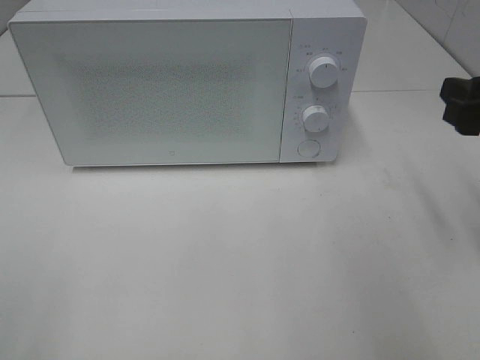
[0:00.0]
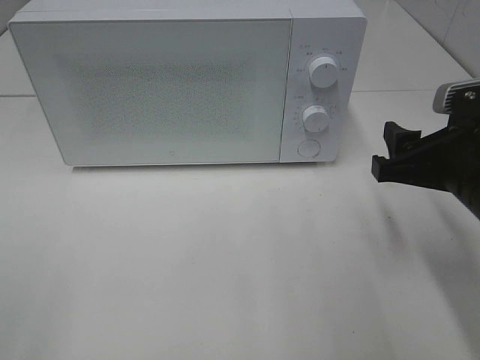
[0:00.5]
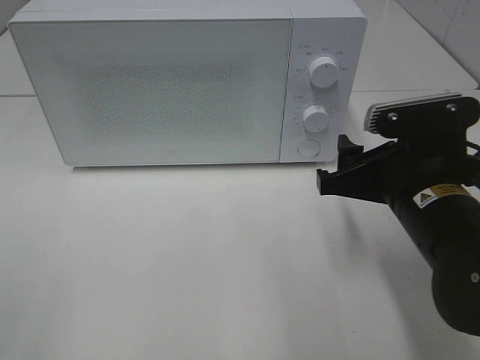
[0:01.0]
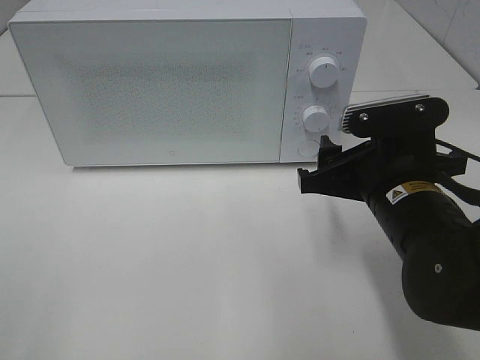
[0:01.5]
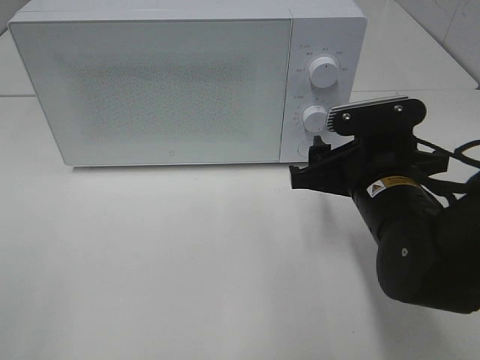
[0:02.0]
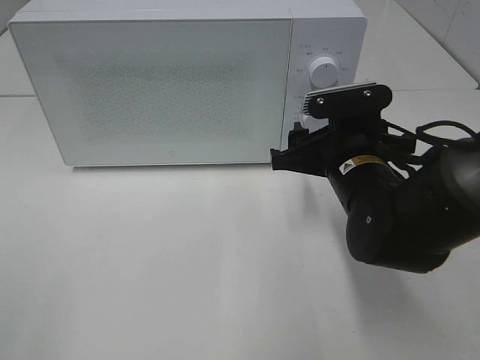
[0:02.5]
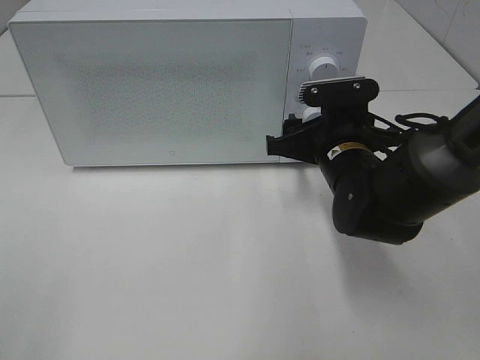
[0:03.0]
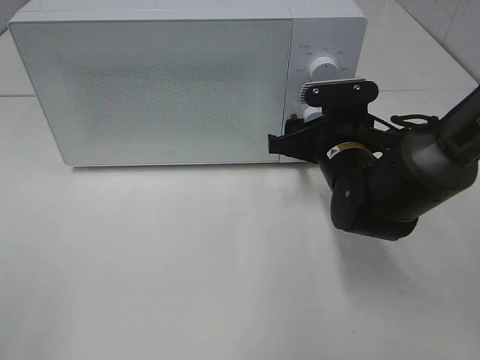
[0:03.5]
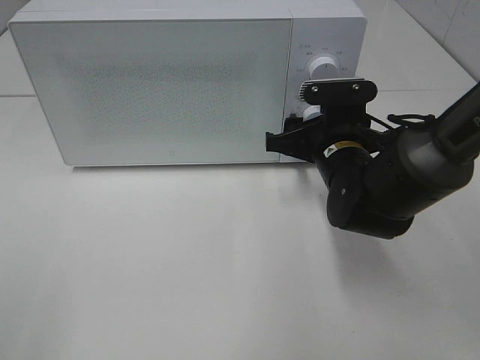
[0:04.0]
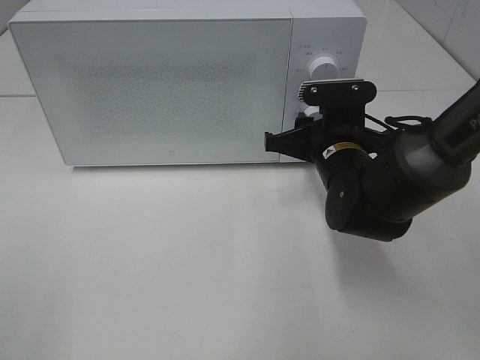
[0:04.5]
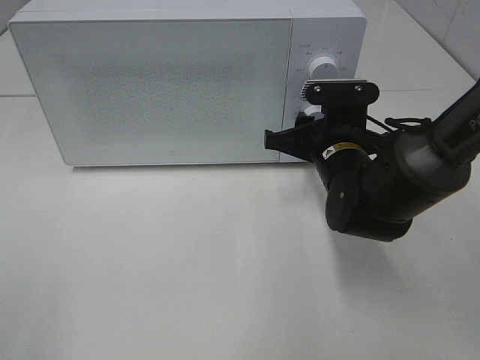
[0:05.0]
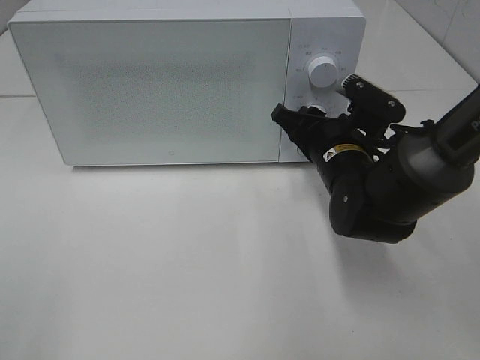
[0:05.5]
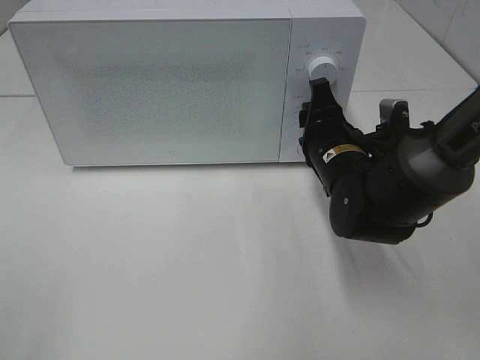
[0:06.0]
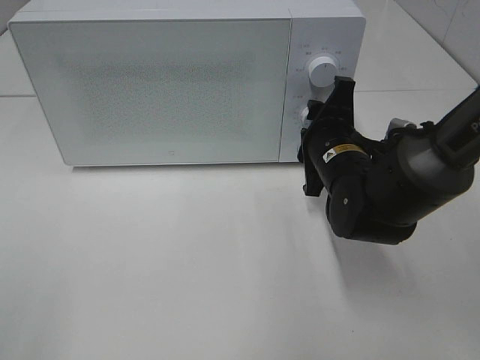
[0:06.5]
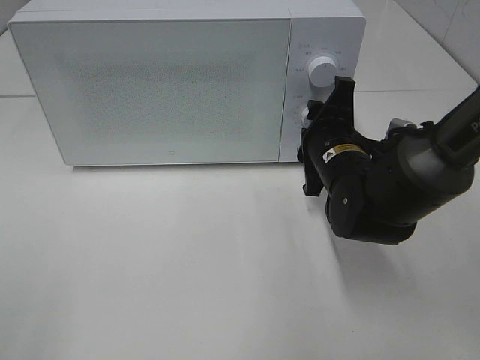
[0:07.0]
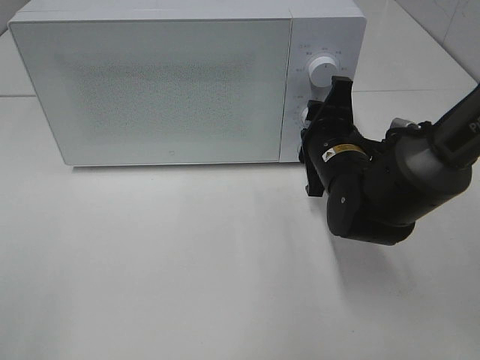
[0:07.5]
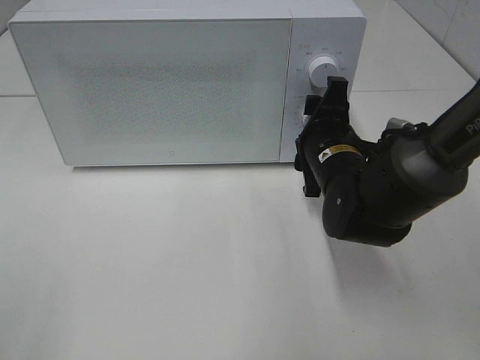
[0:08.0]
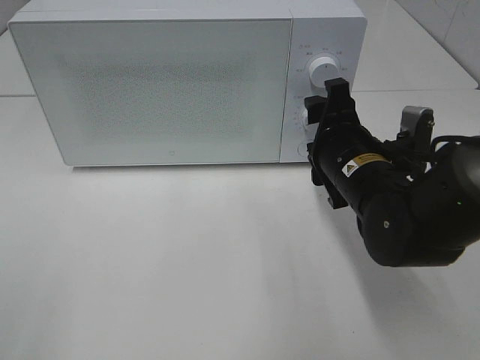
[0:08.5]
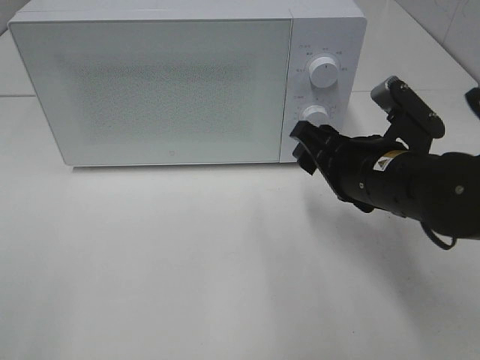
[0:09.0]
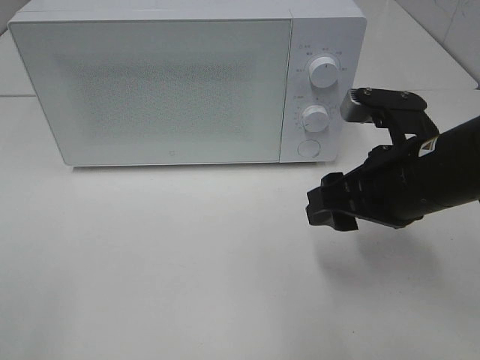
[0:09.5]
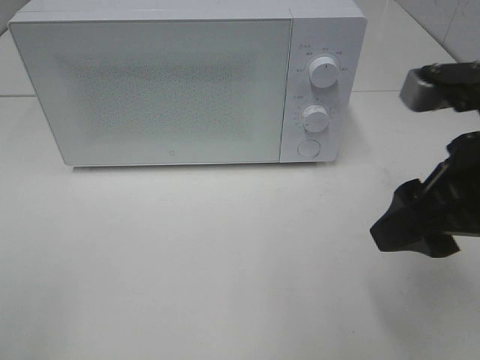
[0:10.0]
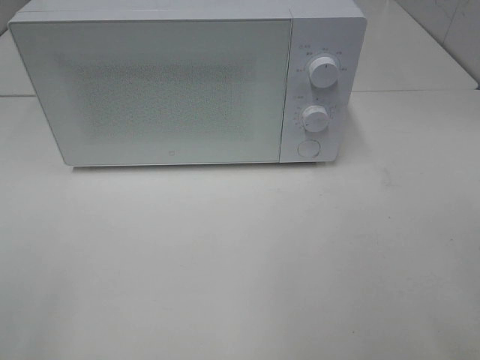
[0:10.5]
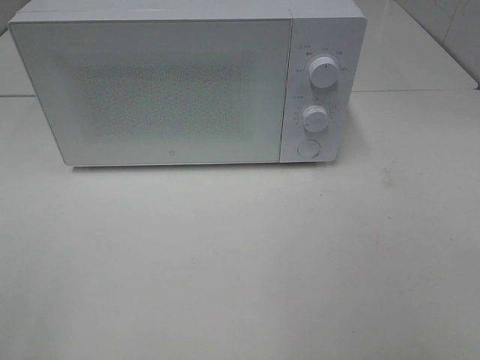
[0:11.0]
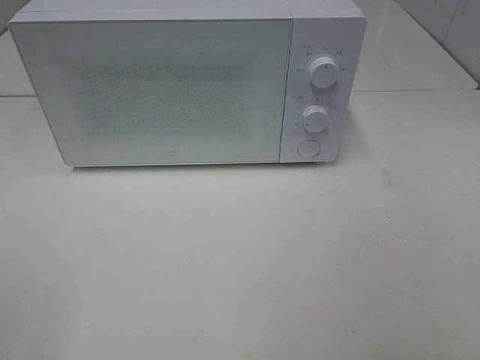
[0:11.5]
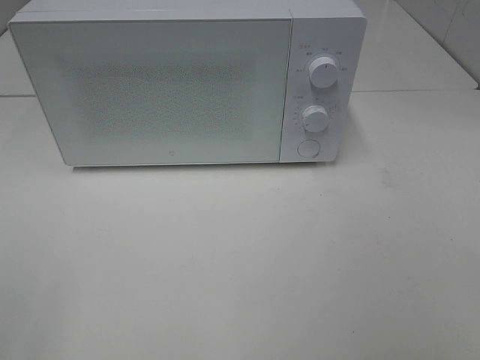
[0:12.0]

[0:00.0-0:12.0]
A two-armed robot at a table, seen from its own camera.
Task of the whole recording: Heat the burger.
Step, 0:00.0 to 0:08.0: Right hand: twist timer button.
0:00.0 to 0:02.0: The right gripper moves to the left and downward, about 15 cm.
0:02.0 to 0:04.0: The right gripper moves forward, about 10 cm.
0:08.0 to 0:10.0: The right gripper is displaced backward, upward and to the right by some 25 cm.
0:10.0 to 0:12.0: The right gripper travels backward and to the right by roughly 20 cm.

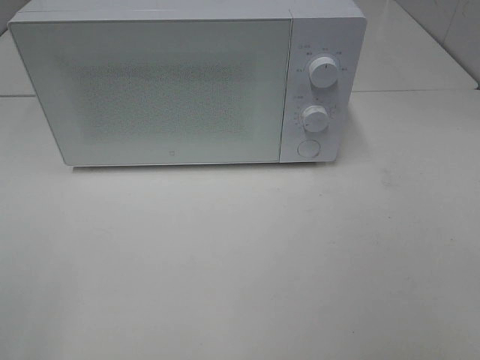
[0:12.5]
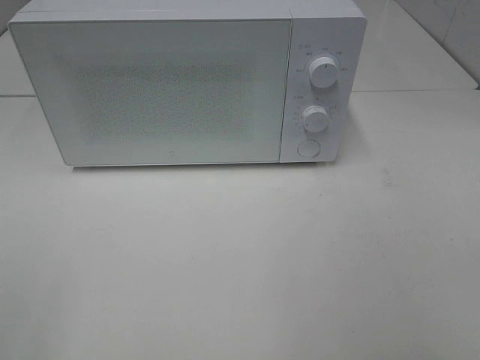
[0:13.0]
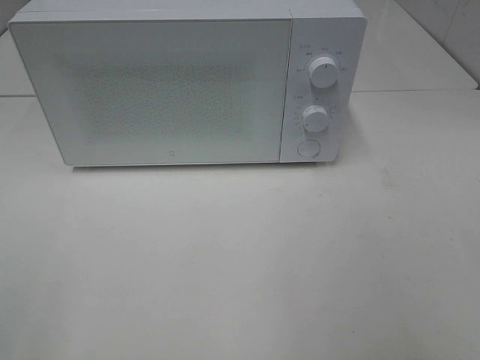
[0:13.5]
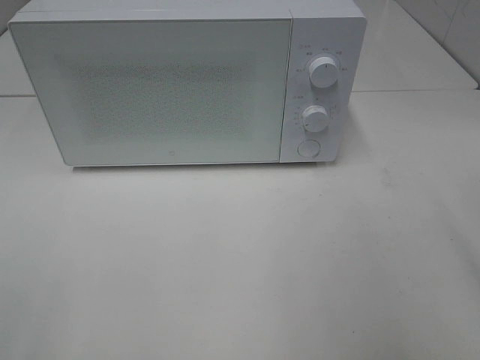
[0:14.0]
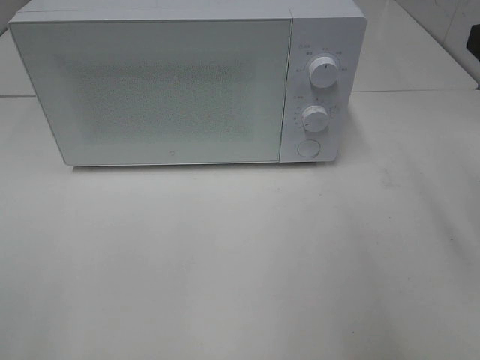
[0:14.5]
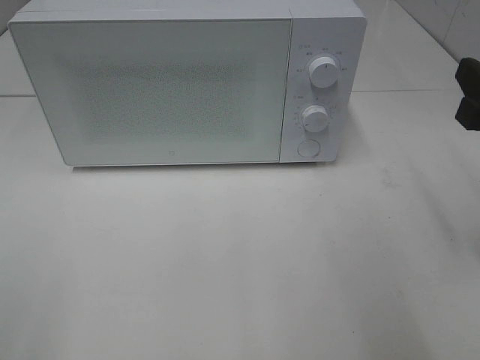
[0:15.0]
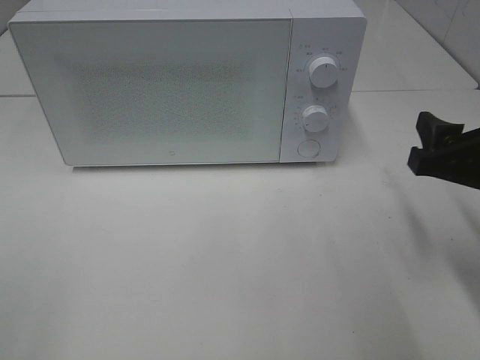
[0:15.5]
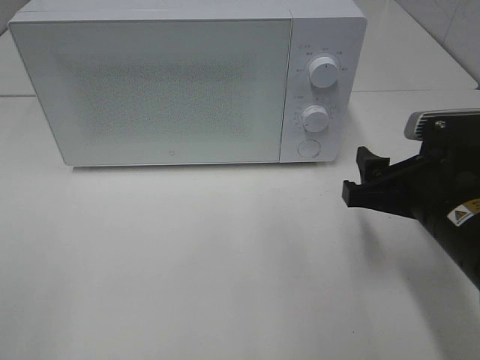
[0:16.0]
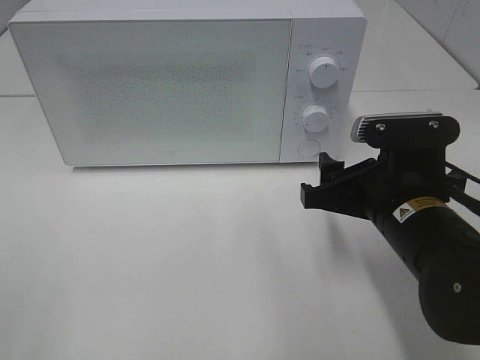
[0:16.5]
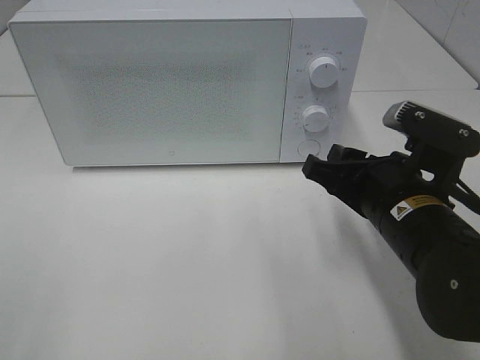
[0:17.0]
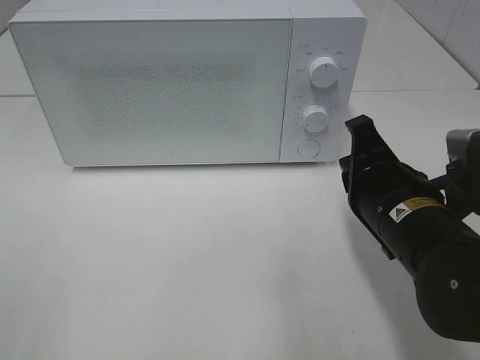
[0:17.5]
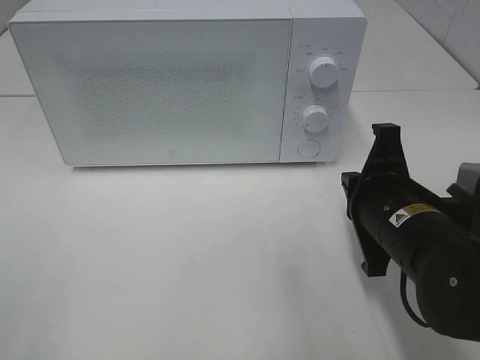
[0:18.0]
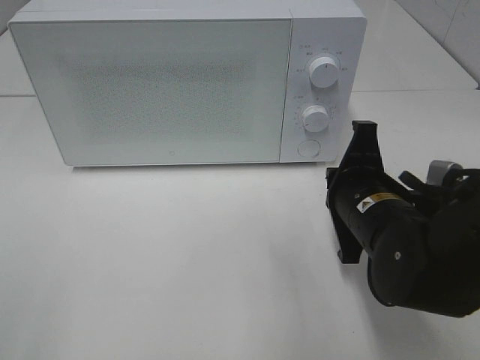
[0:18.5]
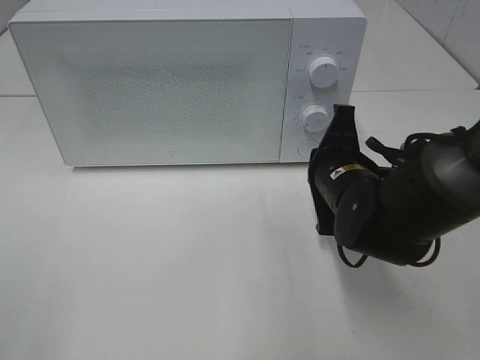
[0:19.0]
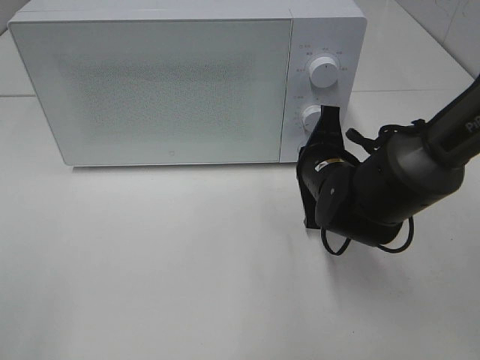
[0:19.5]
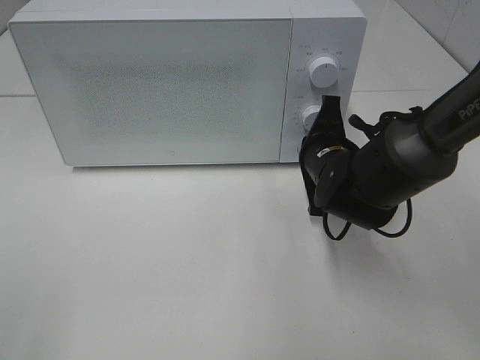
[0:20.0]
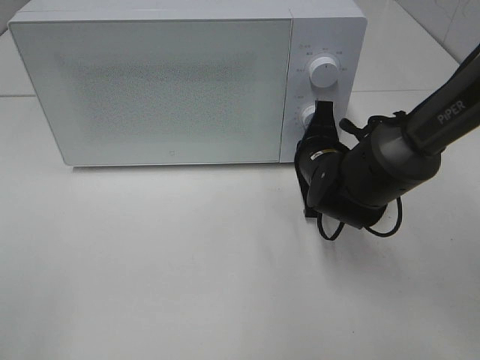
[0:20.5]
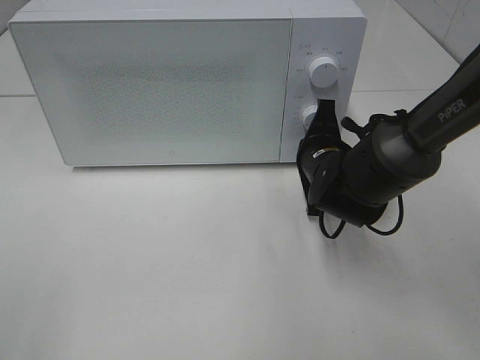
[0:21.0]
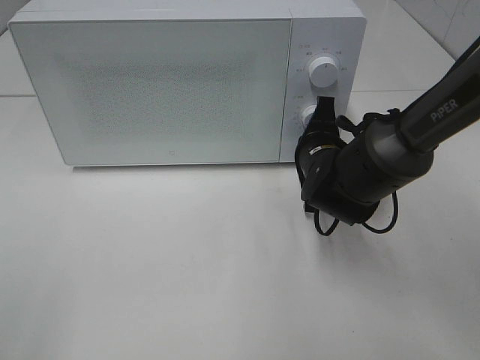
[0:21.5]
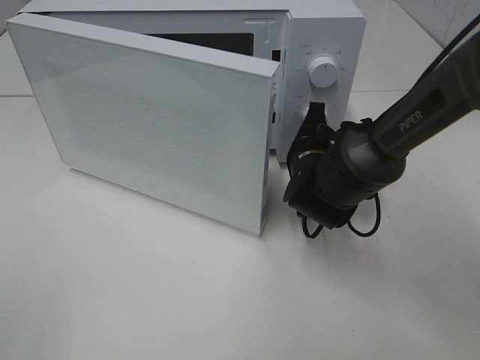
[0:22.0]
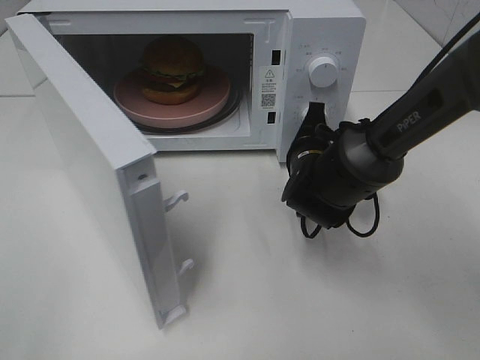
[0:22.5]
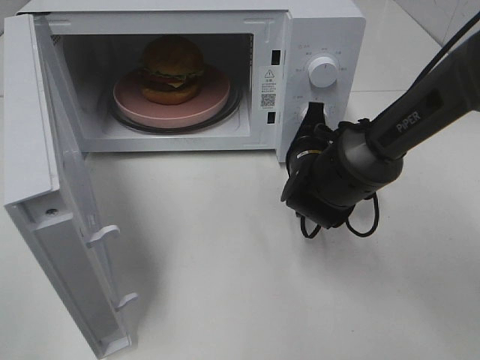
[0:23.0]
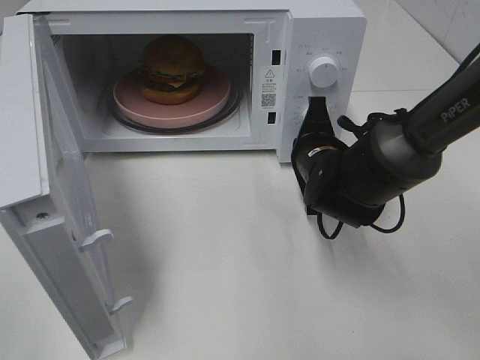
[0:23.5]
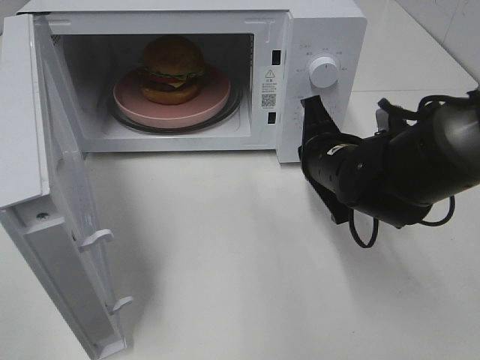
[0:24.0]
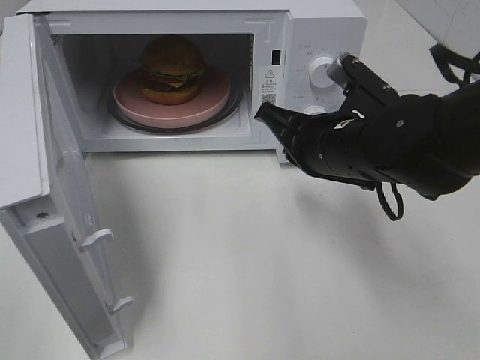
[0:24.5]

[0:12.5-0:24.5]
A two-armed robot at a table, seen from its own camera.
Task of the whole recording: Heat the burger.
Step, 0:12.5 to 0:23.5: Right hand: press the switch.
0:14.5 to 0:16.5: The right gripper moves downward and to the left, some 20 cm.
0:16.5 to 0:18.5: The right gripper closes its fingers.
0:18.5 to 0:20.5: The right gripper heads forward, covering approximately 10 cm.
0:22.5 to 0:24.5: The right gripper is displaced upward and backward by roughly 10 cm.

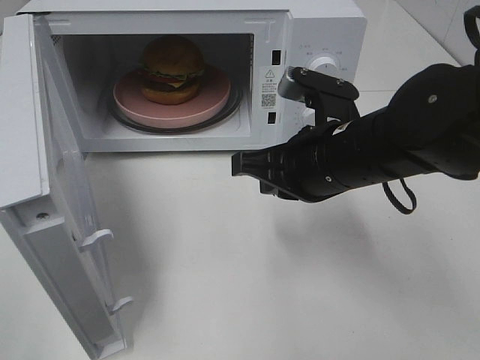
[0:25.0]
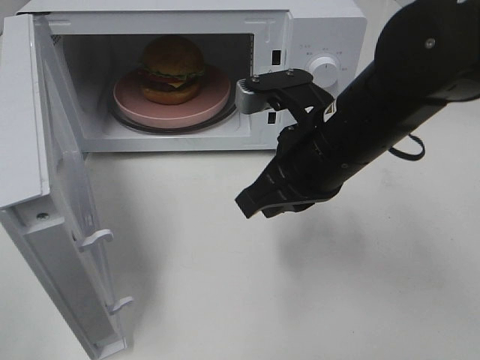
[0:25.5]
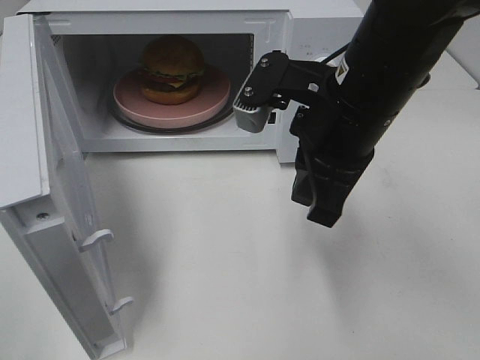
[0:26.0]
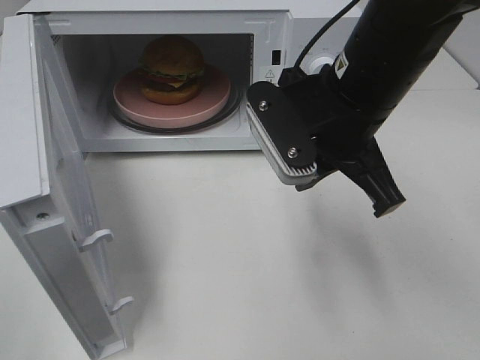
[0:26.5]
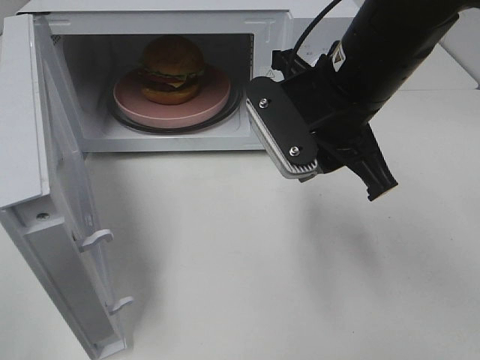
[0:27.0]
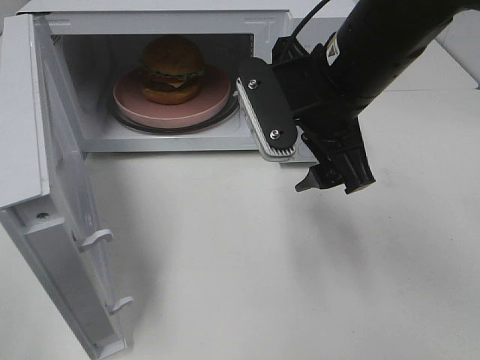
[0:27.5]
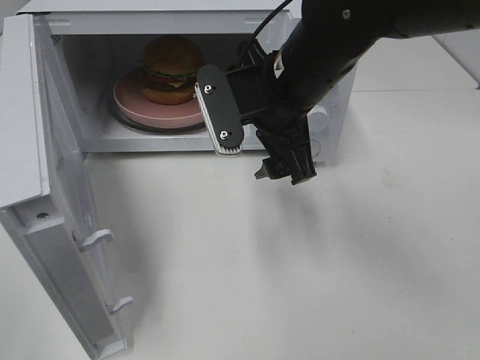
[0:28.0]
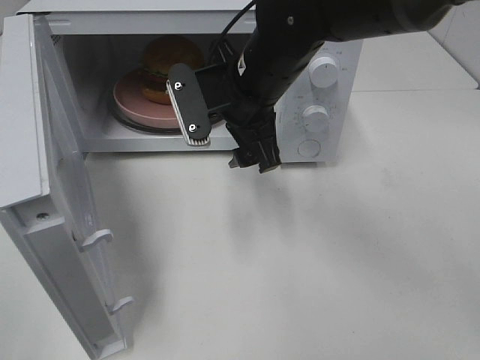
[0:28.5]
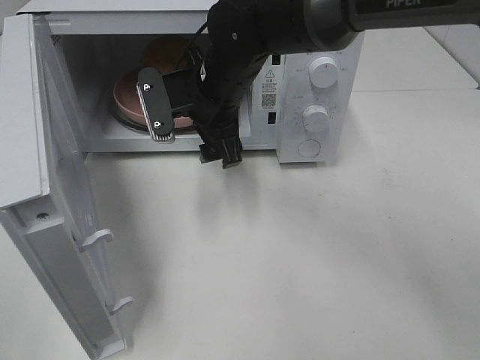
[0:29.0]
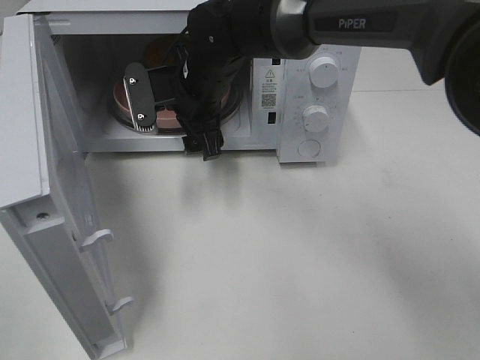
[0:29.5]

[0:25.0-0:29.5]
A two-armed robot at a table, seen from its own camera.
Task of the whole recording: Heat the burger.
0:25.0 to 0:27.0: The right gripper shifts about 5 cm upward, and opens up.
0:27.0 to 0:29.5: The right gripper travels forward, to the left and downward by some 20 cm, and opens up.
